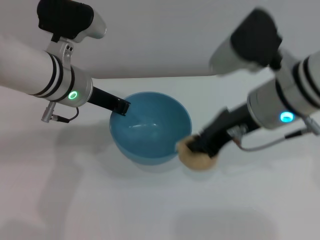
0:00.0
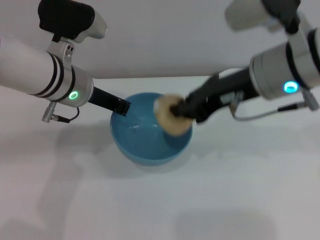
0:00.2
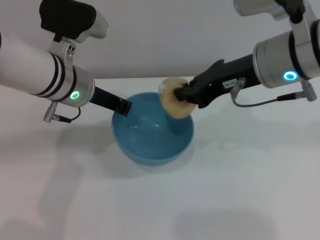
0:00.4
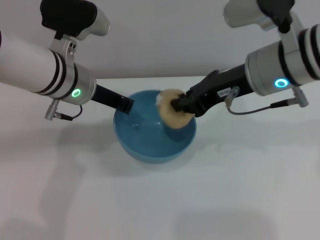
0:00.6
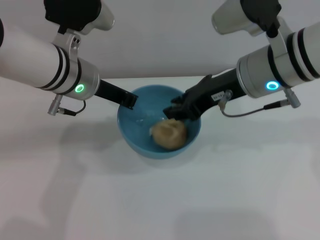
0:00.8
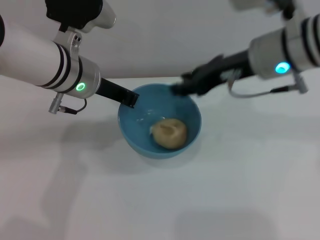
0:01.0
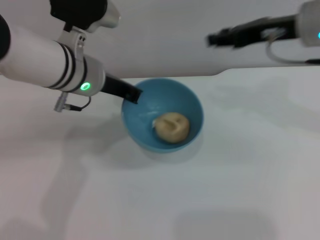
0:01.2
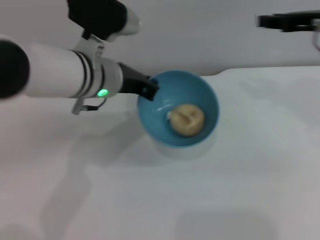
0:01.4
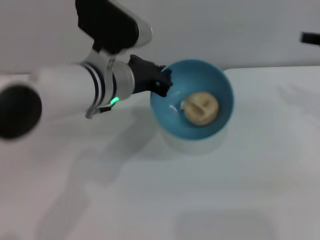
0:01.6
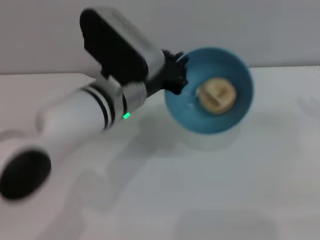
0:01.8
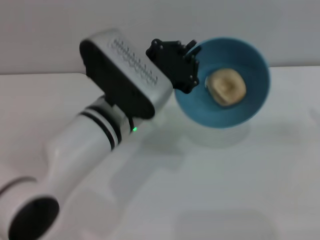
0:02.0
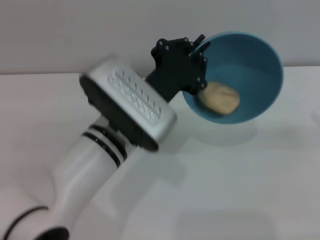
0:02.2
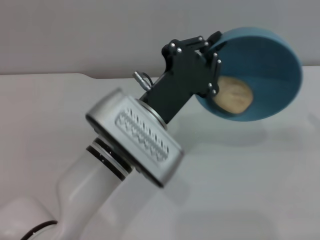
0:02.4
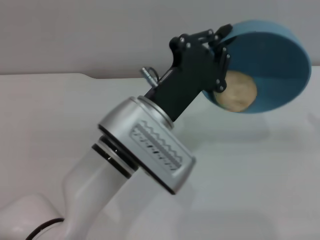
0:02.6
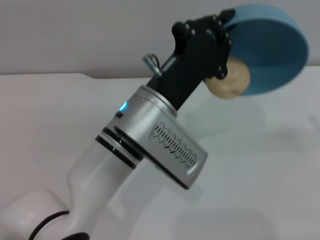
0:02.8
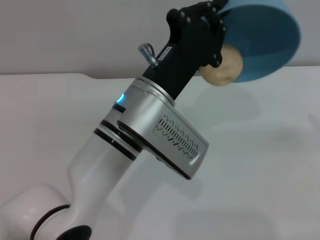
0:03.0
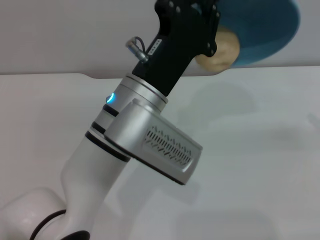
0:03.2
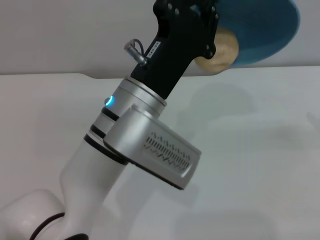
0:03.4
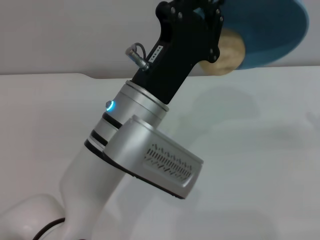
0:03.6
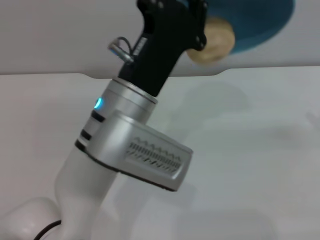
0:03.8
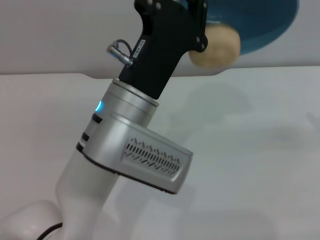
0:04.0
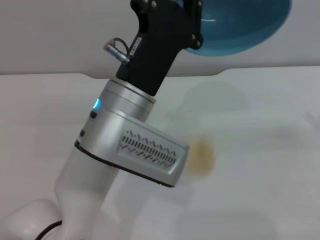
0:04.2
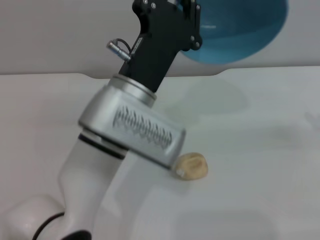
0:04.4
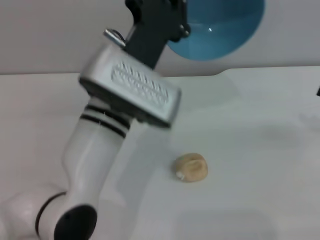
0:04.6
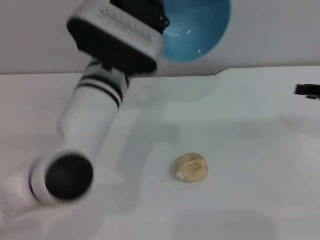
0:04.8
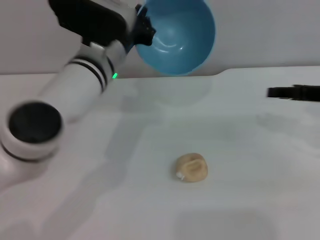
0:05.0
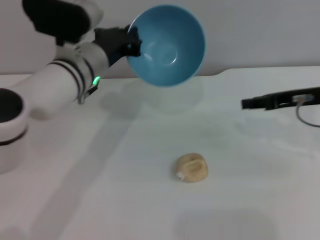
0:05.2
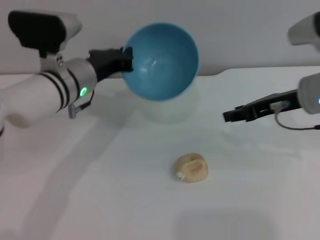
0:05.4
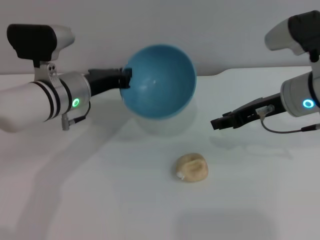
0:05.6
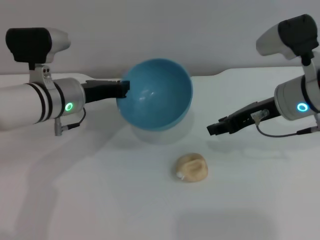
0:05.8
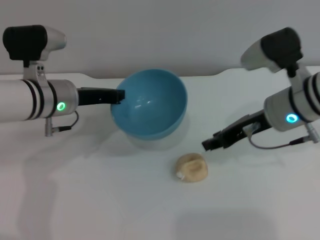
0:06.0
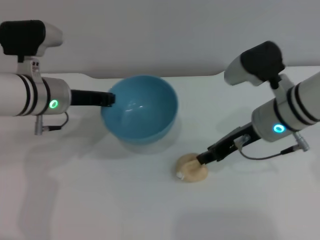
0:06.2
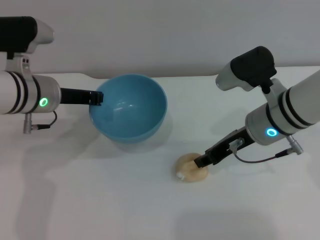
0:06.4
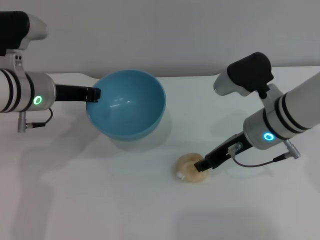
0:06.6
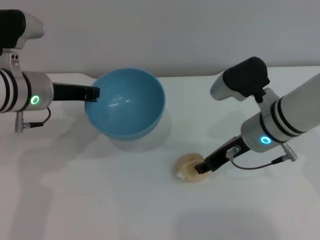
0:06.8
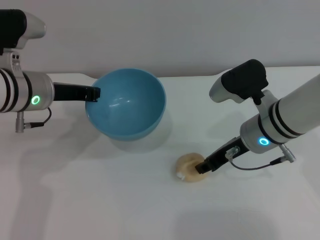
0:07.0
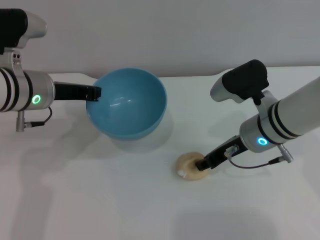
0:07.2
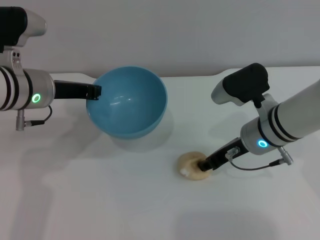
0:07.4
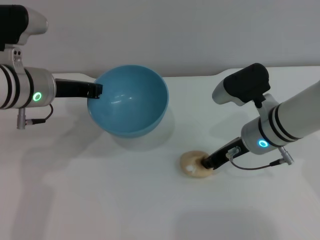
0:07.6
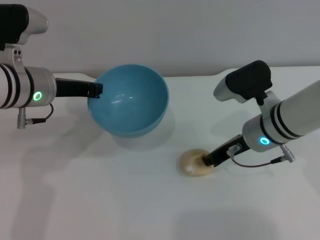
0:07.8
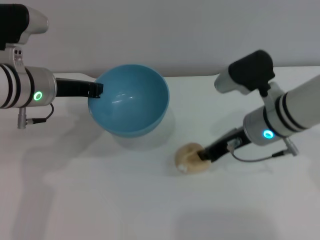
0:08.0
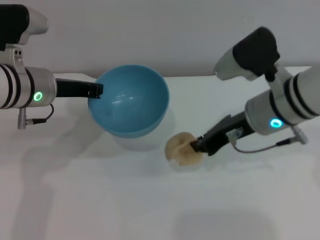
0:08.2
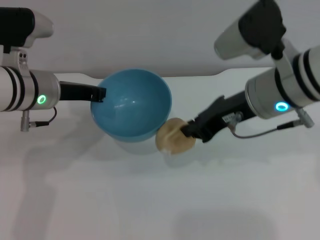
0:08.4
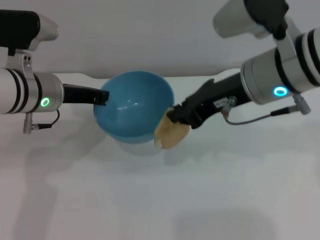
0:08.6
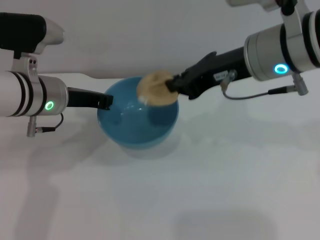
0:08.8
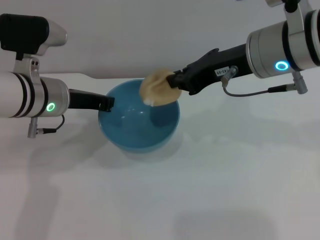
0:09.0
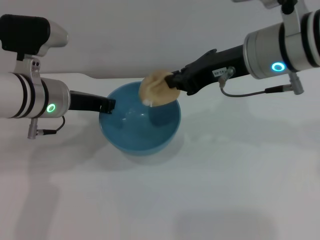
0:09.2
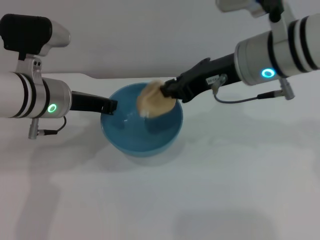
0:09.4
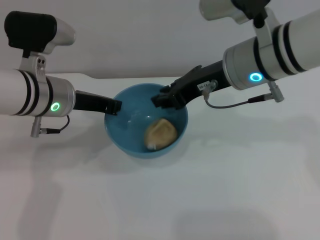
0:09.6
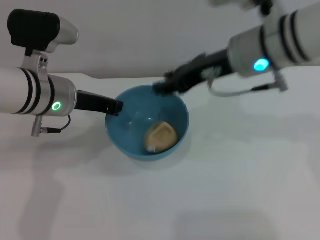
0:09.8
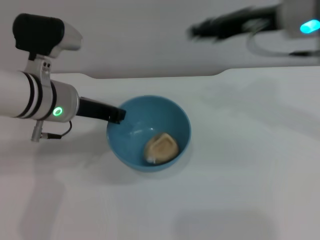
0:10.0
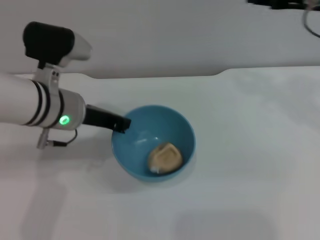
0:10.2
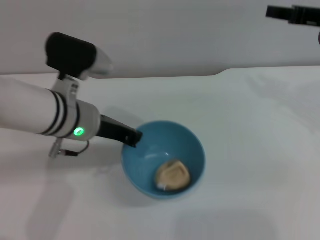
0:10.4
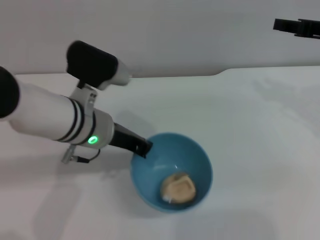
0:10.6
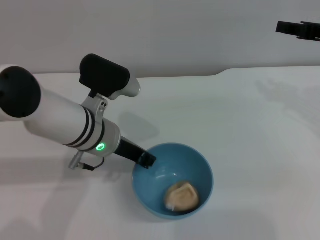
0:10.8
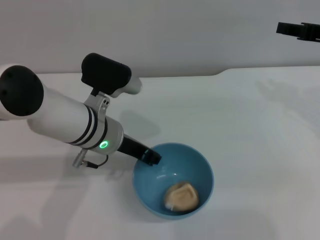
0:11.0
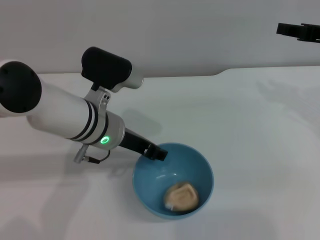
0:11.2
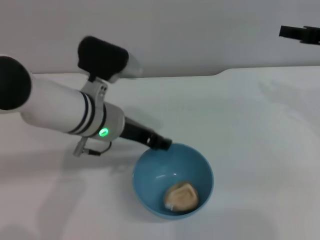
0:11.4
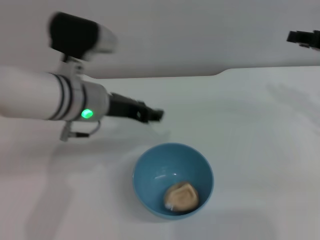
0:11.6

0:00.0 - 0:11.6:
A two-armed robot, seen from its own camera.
Task of the whole recording: put the egg yolk pastry into the blue bowl and pour it out repeatedly.
Step, 0:00.0 - 0:00.8: Place the egg yolk pastry into the bowl.
Step, 0:01.0 - 0:04.4: Pour the egg yolk pastry out of bowl.
Step, 0:04.6 - 0:08.2: Pick up the egg yolk pastry with the right gripper.
Step, 0:08.4 - 0:09.6: Place the egg yolk pastry into the bowl.
Step, 0:09.8 - 0:11.4: Place the bowl on the table.
0:00.0 - 0:01.4: The right gripper travels to the right and forward by roughly 15 cm, and opens its fingers.
0:01.4 - 0:02.8: The left gripper is displaced backward and to the right by approximately 10 cm, while the right gripper heads to the right, downward and backward, covering about 15 cm.
0:04.4 - 0:05.8: The right gripper heads to the left, covering some 20 cm. Meanwhile the left gripper heads to the left and forward, covering approximately 15 cm.
0:05.8 - 0:07.2: The left gripper shifts by approximately 5 cm. Meanwhile the right gripper moves downward, some 5 cm.
0:07.2 - 0:08.8: The right gripper moves upward, about 15 cm, and closes up.
0:08.8 - 0:10.2: The right gripper heads to the right, covering roughly 10 cm, and opens.
0:10.2 - 0:11.6: The left gripper opens its fingers. Meanwhile the right gripper shifts some 10 cm downward and to the right.

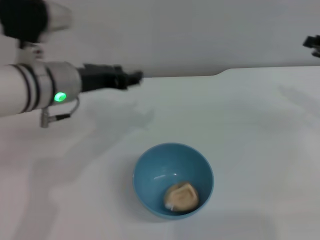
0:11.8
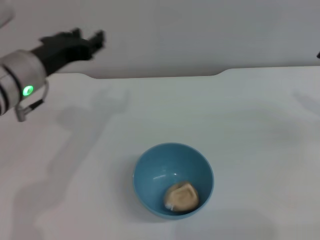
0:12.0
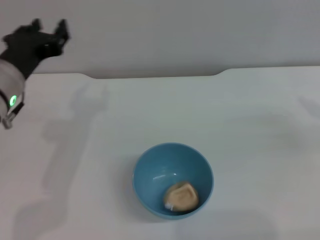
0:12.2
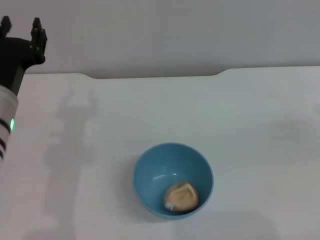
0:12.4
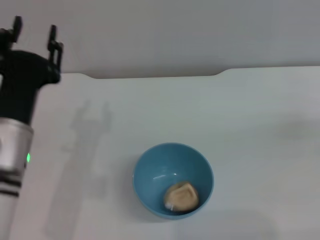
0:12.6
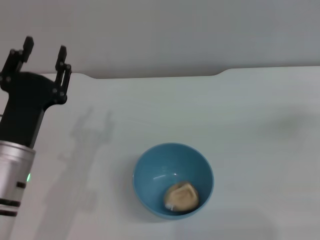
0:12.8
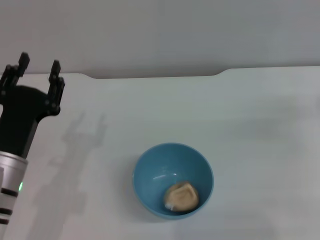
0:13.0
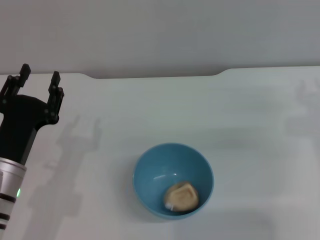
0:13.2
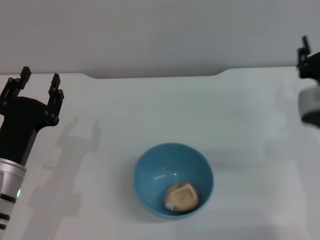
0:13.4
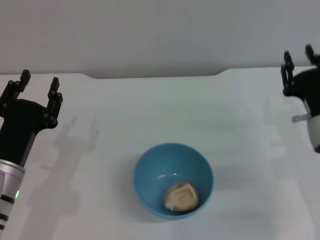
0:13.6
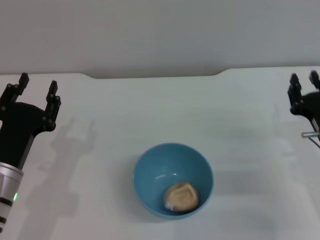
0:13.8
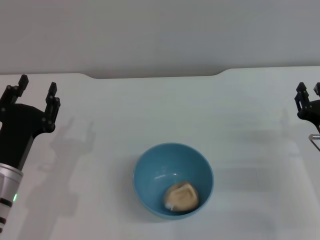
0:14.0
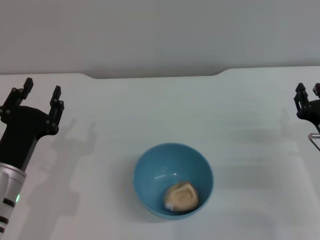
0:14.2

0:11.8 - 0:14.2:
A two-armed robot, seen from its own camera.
Task of the whole recording: put the egg yolk pastry into the blue bowl and pour it out repeatedly.
0:11.8 - 0:13.0: The right gripper heads downward, covering some 5 cm. The left gripper shifts some 15 cm backward, downward and to the left.
0:13.0 - 0:14.2: The right gripper goes roughly 10 cm downward, backward and to the left.

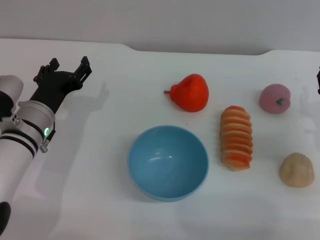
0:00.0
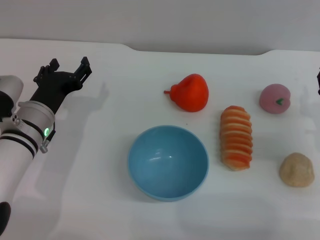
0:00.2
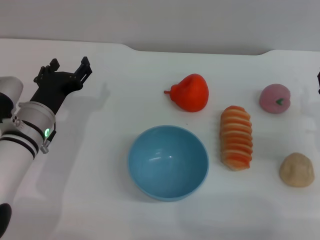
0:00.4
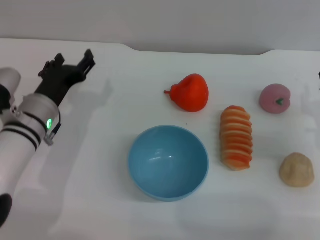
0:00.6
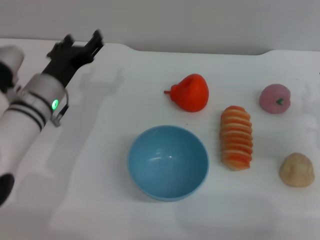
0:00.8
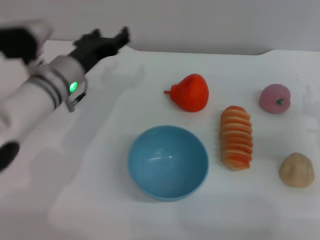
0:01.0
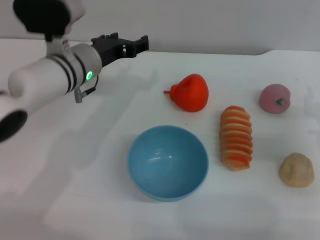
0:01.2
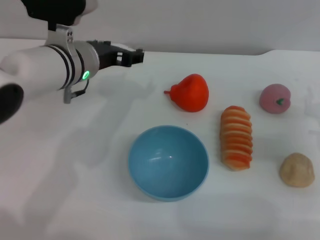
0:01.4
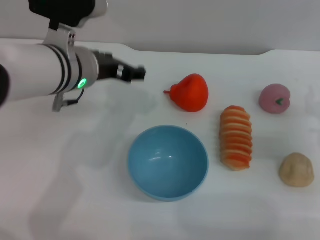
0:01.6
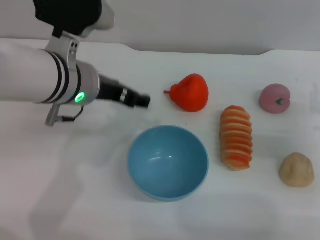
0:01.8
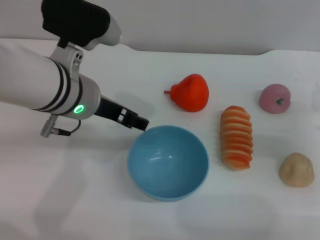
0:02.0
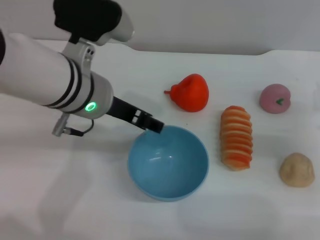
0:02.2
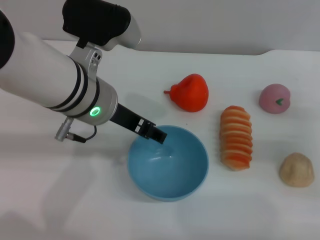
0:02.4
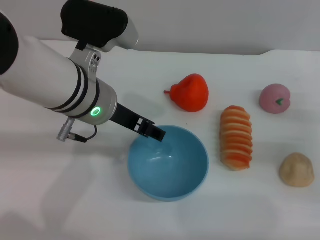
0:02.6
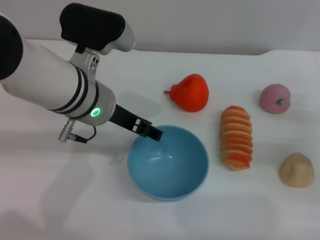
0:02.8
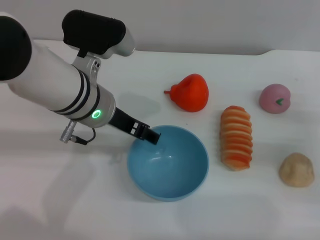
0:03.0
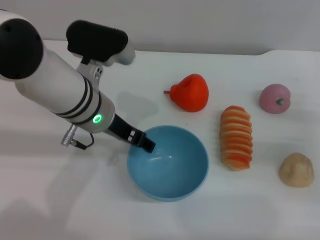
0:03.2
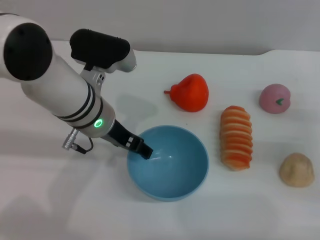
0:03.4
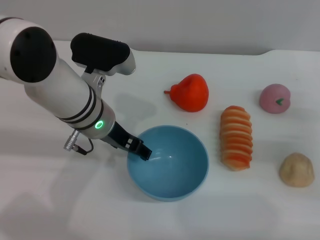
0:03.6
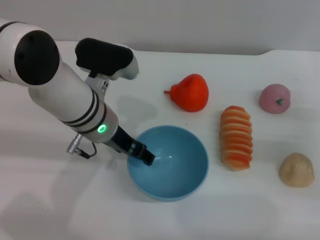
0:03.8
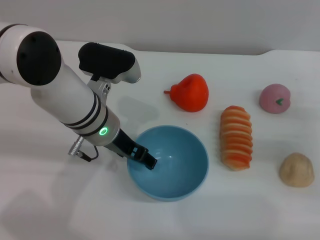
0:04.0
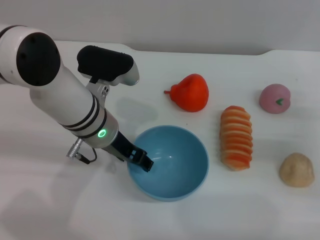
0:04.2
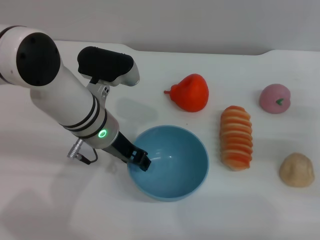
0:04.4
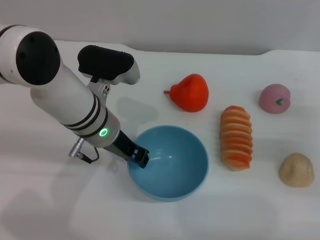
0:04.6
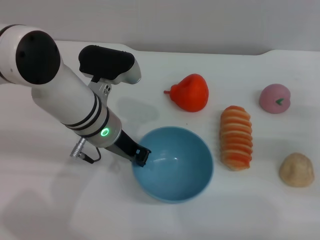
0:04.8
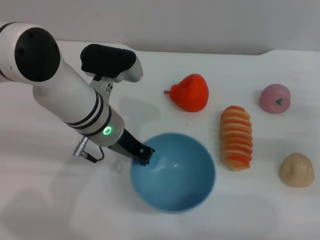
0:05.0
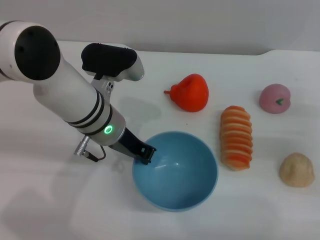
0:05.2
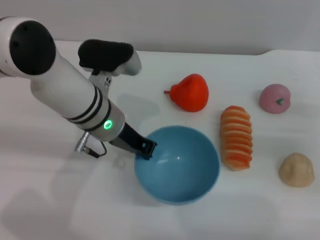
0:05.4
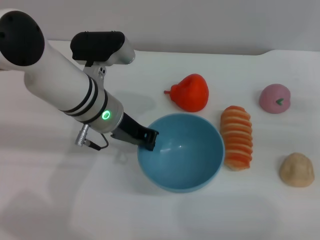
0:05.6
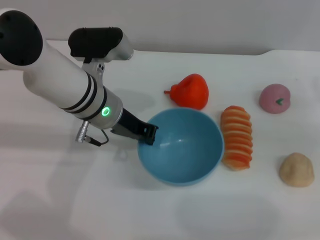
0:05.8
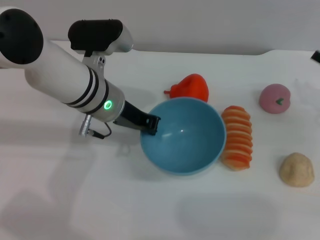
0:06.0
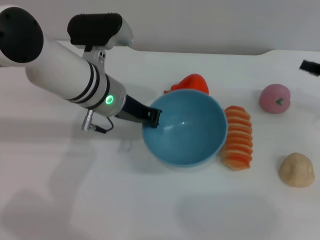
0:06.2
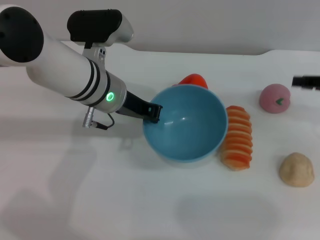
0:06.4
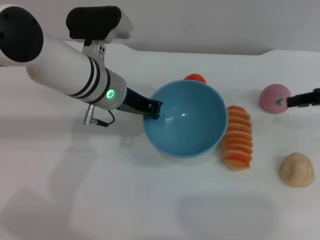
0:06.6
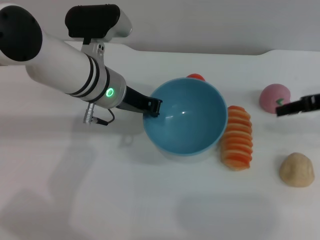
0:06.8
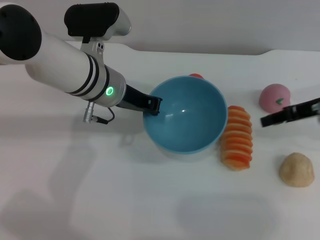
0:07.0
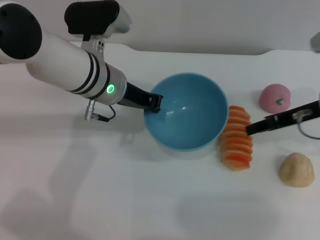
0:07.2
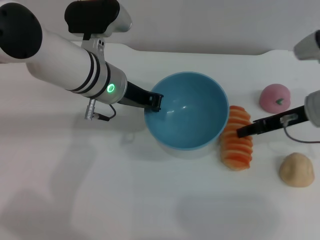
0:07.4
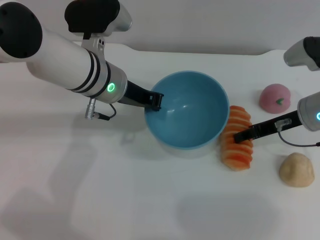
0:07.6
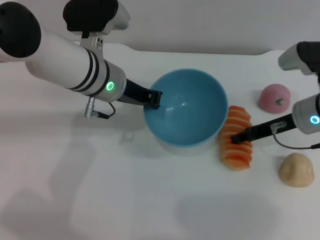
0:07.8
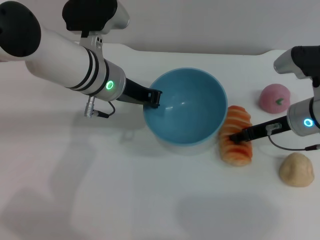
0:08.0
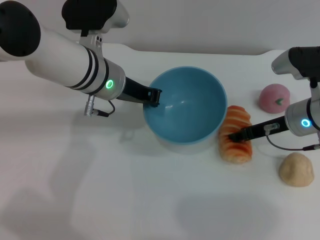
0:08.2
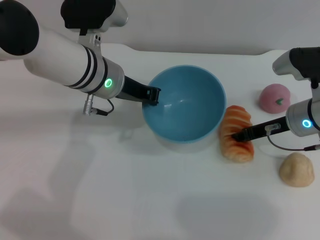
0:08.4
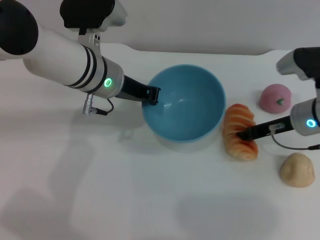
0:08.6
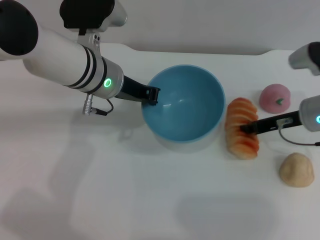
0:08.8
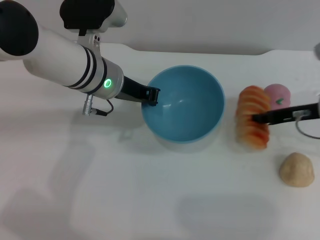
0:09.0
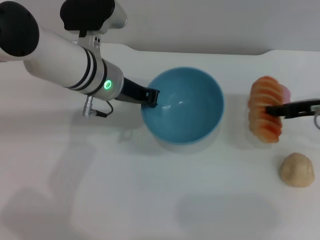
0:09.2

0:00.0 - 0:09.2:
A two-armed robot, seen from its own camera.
Task of the whole recording: put the bread into the blue bowl and pour it out repeatedly.
Step, 0:00.0 - 0:05.8: Pick up the bowl with the left gripper.
Step, 0:06.0 - 0:09.0: Pick up the bread with the right gripper.
0:00.0 - 0:01.6: The left gripper moves upward and to the right, some 15 cm.
0:03.0 - 0:04.6: The left gripper moves about 5 cm, and closes up.
0:04.6 - 0:06.2: The right gripper shifts roughly 5 cm upward. Meanwhile the left gripper closes.
0:06.2 - 0:07.6: The right gripper heads to the left, covering approximately 10 cm.
0:07.6 - 0:09.2: The right gripper moves to the right, roughly 5 cm, and closes.
